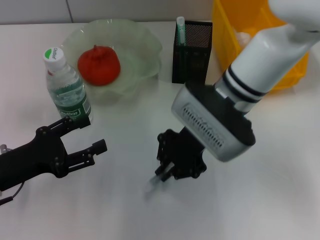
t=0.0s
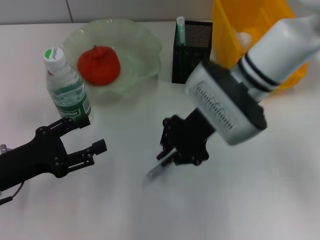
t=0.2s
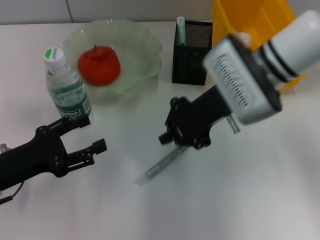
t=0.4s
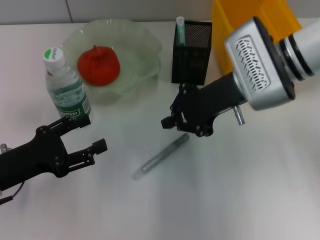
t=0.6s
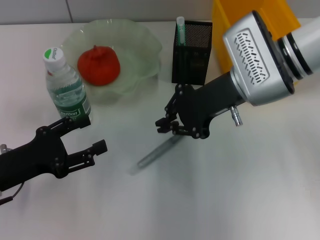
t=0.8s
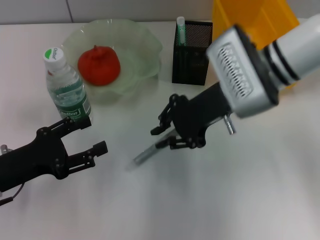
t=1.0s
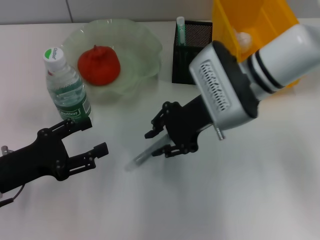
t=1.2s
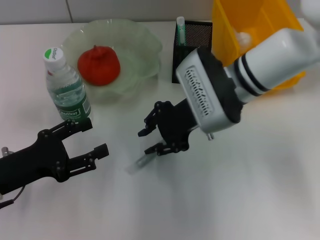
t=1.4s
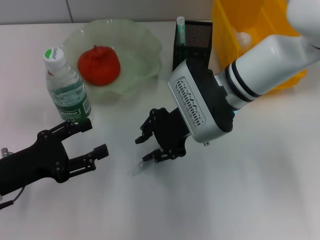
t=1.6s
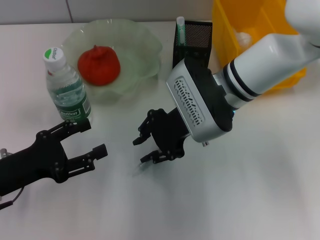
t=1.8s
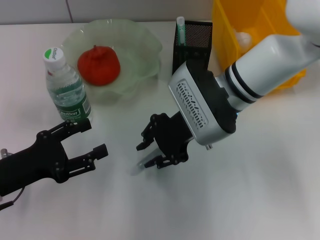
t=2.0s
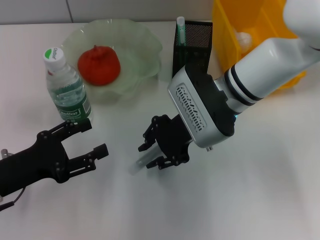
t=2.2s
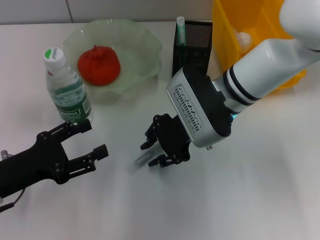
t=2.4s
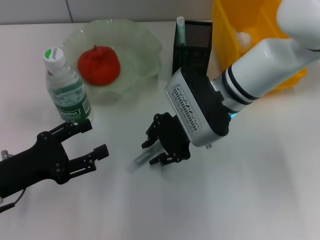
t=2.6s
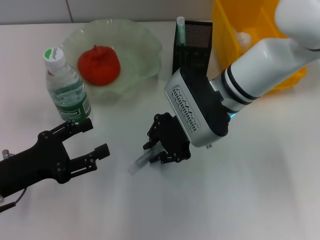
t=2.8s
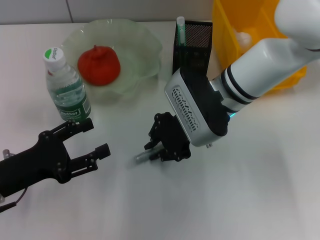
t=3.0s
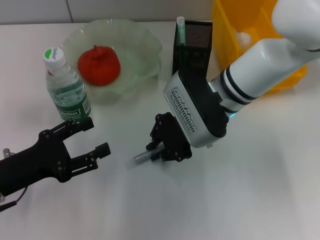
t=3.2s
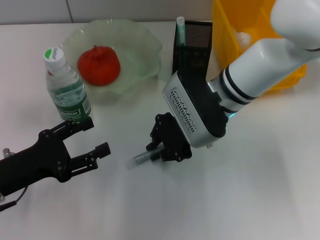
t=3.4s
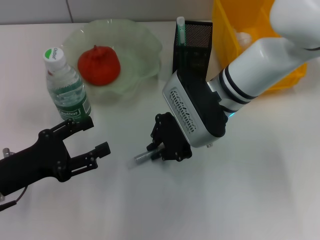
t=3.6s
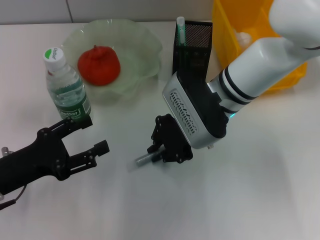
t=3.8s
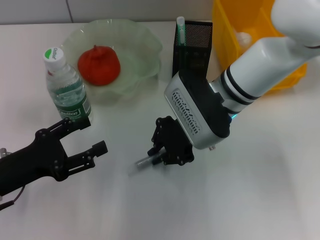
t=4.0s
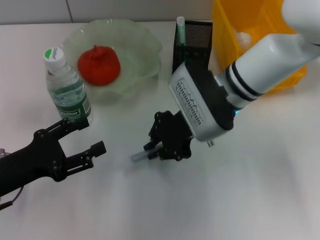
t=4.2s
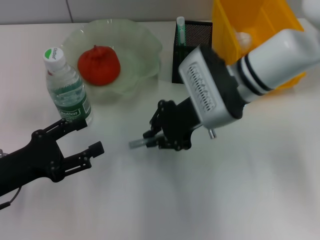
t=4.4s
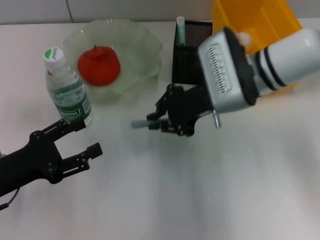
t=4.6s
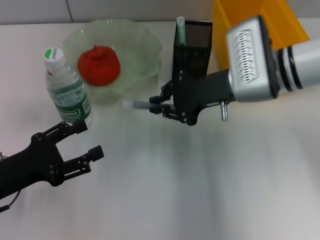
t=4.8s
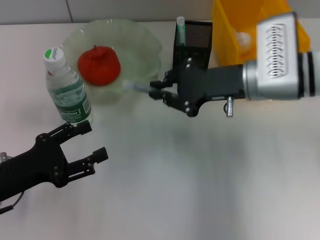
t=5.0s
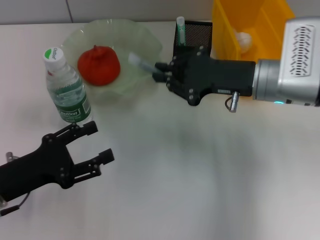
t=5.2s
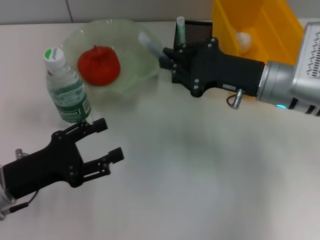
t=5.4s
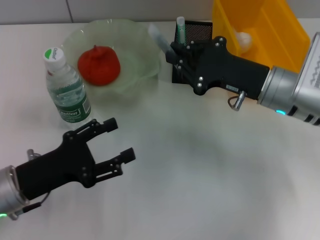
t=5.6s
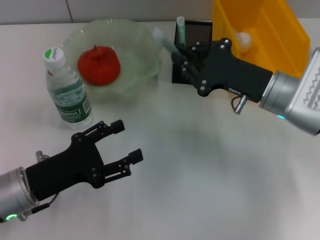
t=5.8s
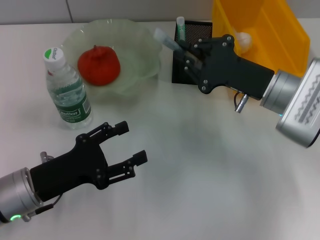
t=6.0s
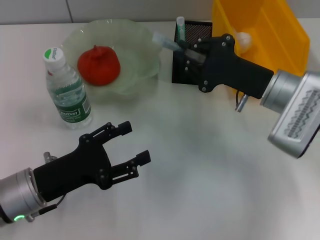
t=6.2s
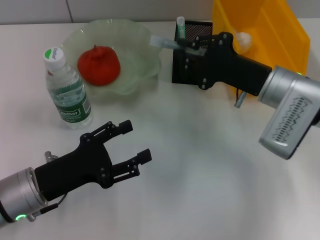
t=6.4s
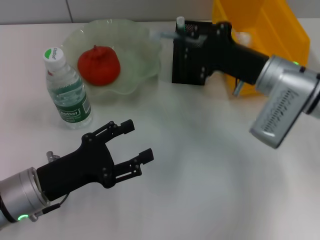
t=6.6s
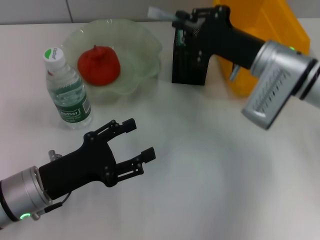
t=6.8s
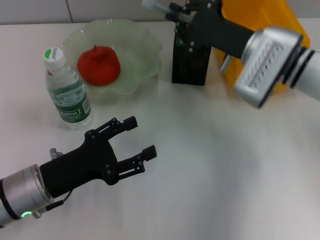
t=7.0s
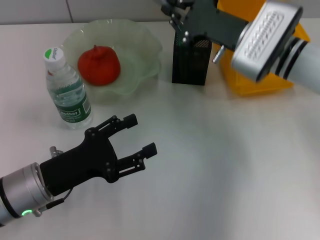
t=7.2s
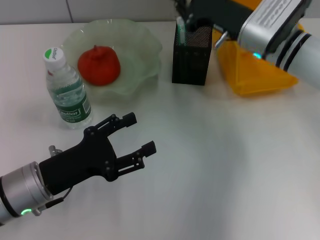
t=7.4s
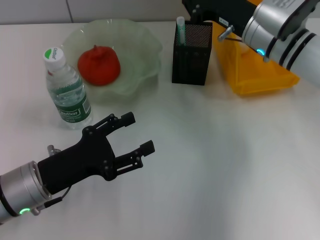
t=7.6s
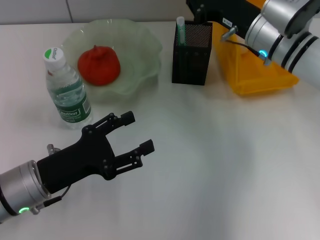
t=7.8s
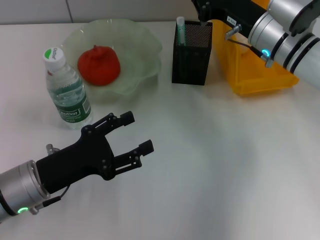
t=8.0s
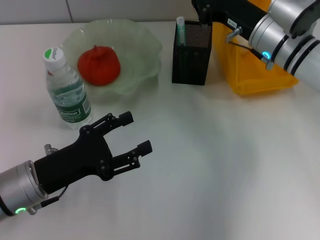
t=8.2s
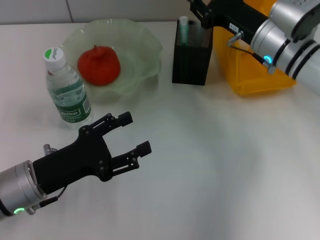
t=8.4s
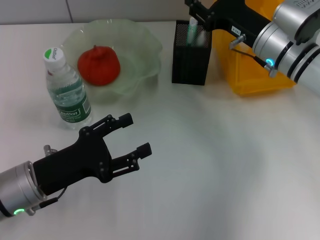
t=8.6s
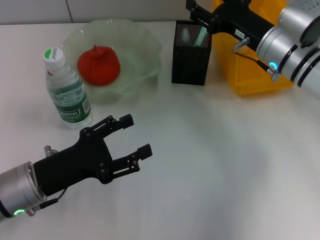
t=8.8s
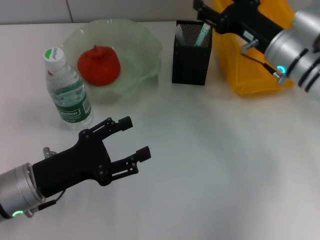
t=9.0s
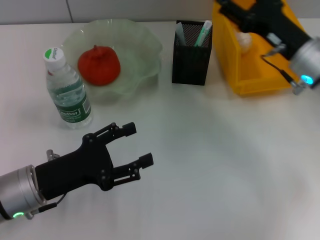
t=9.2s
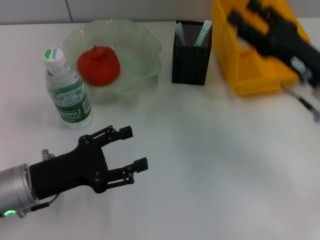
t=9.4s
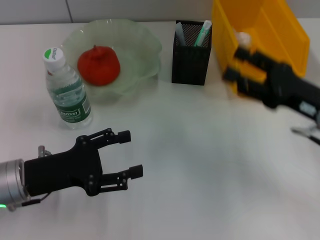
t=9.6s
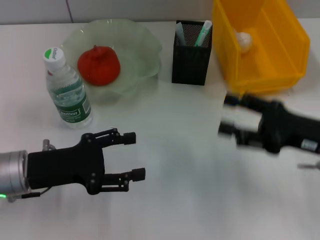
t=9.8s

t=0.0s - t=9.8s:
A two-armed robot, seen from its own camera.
Step, t=0.0s - t=4.0s: Grab the gray glue with the right hand.
Step, t=4.2s - t=8.6s: Place the gray glue into the pen holder with the right hand.
t=1.4s - t=2.8s: There are only small adjustments of the grippers.
t=2.8s - t=4.2s: The two grippers keep their place.
t=4.2s - t=5.6s: The right gripper is displaced to the right by about 10 cm.
t=5.6s - t=7.0s: The right gripper is displaced forward by some 5 cm.
t=8.4s - t=9.8s: The right gripper travels backward and to the right by some 15 cm, and opens.

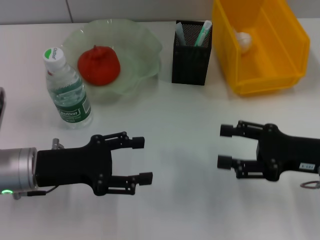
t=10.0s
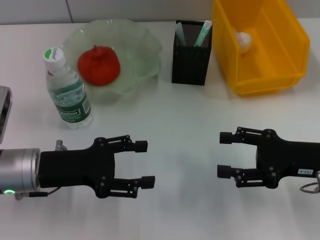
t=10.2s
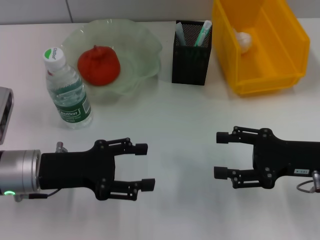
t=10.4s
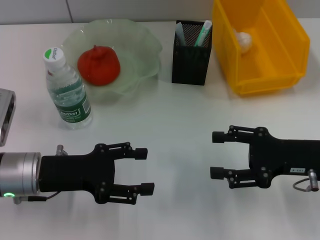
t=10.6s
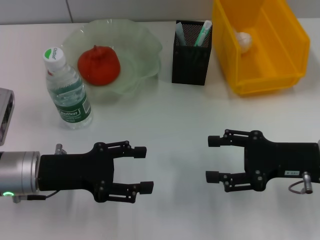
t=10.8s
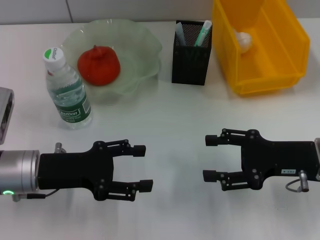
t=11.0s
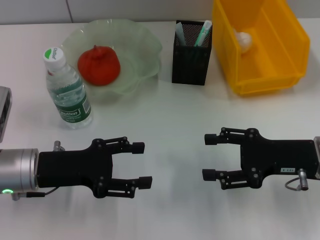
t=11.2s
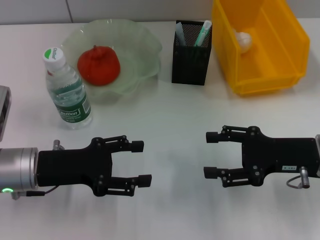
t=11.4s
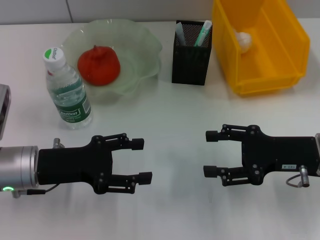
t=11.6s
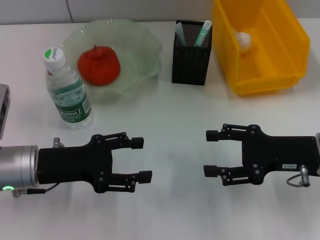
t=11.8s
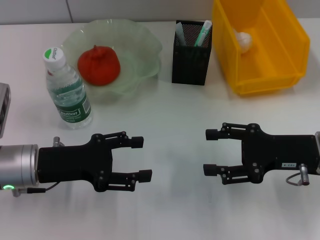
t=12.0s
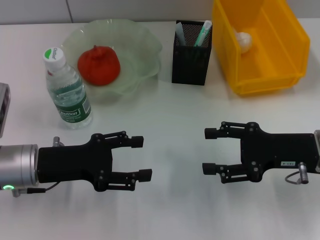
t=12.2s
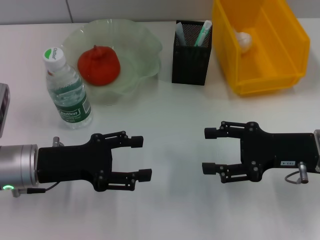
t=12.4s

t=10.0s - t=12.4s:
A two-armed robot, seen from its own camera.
t=10.0s - t=11.2s: The grippers move only a little.
t=11.2s - t=12.4s: The two grippers keep their place.

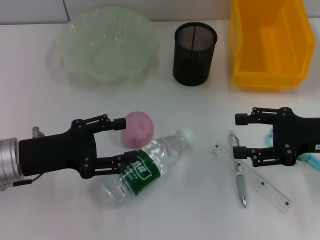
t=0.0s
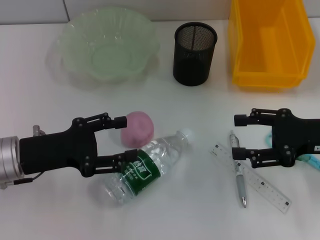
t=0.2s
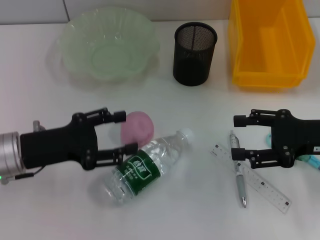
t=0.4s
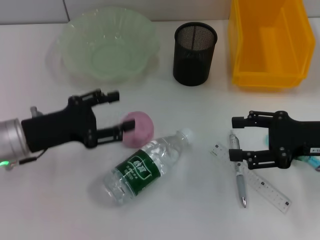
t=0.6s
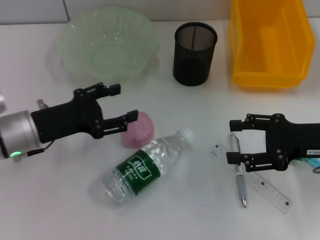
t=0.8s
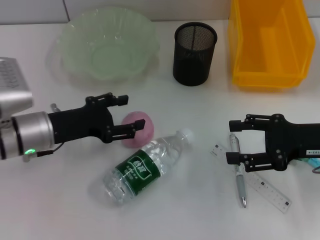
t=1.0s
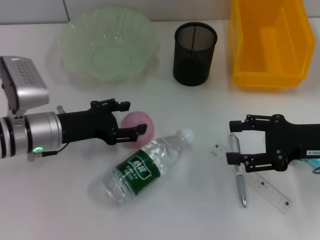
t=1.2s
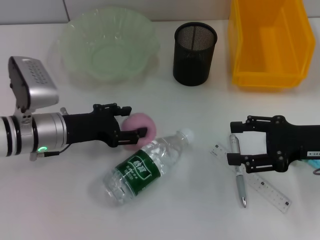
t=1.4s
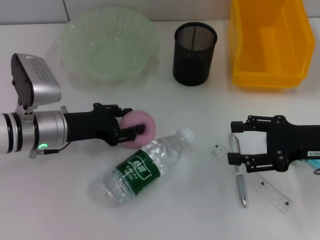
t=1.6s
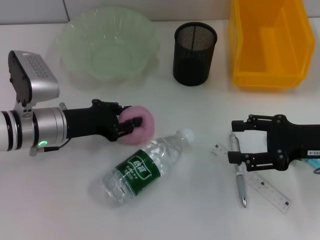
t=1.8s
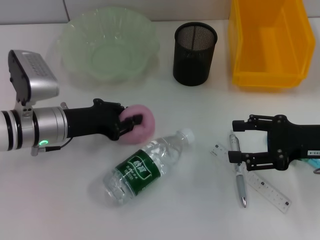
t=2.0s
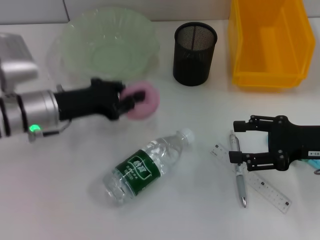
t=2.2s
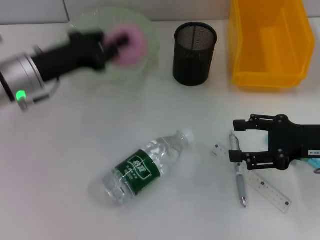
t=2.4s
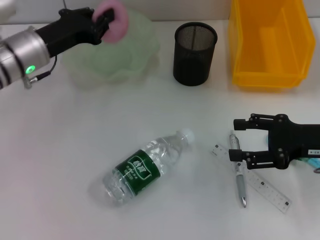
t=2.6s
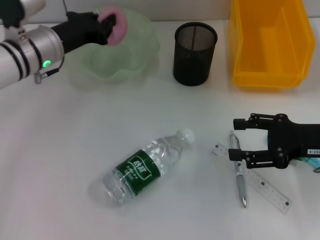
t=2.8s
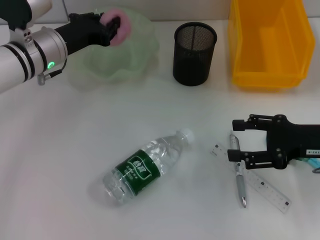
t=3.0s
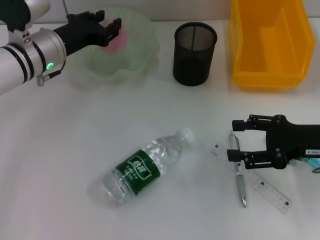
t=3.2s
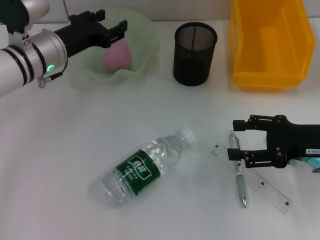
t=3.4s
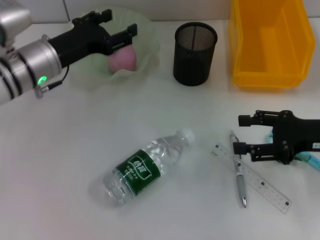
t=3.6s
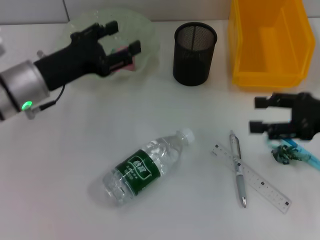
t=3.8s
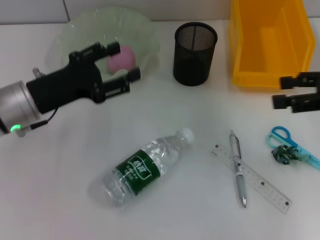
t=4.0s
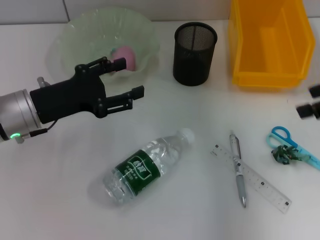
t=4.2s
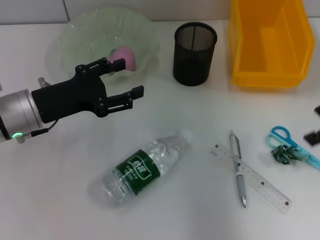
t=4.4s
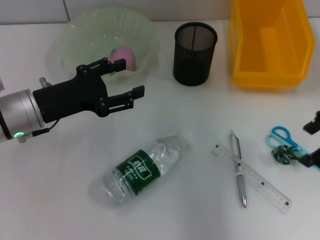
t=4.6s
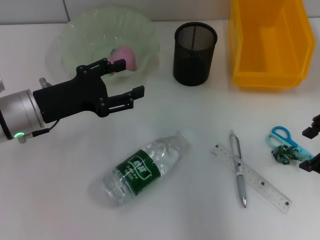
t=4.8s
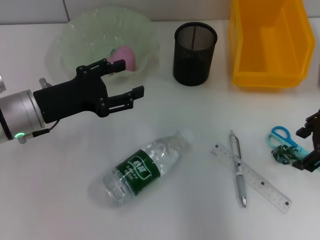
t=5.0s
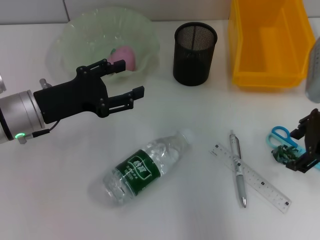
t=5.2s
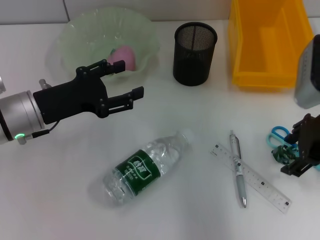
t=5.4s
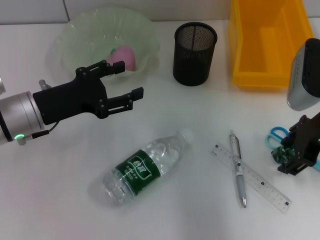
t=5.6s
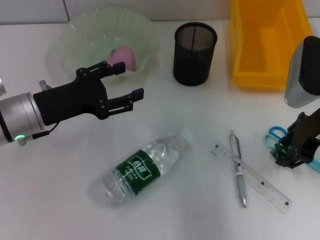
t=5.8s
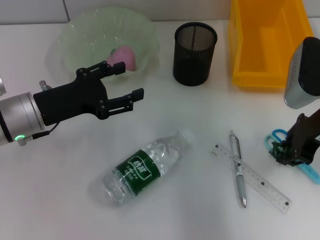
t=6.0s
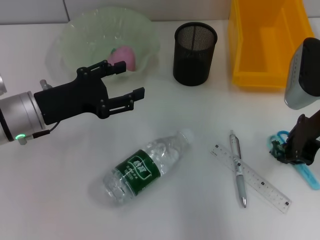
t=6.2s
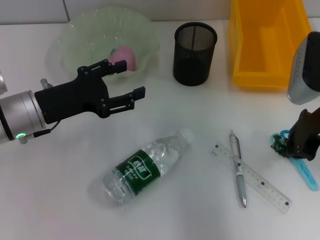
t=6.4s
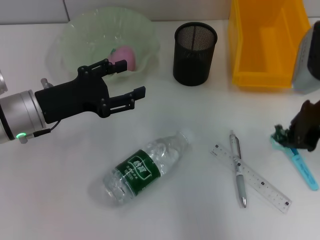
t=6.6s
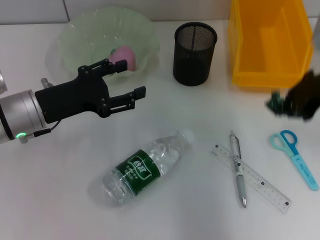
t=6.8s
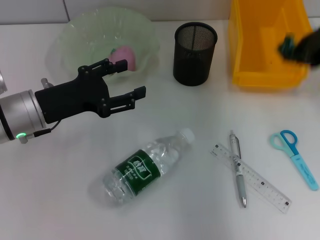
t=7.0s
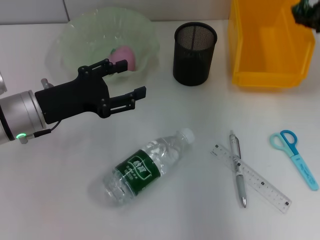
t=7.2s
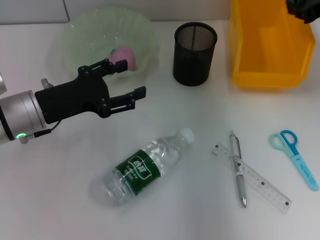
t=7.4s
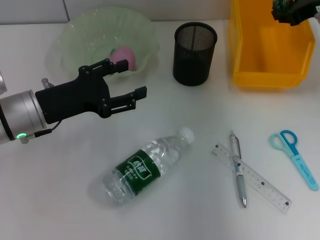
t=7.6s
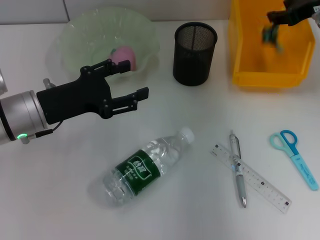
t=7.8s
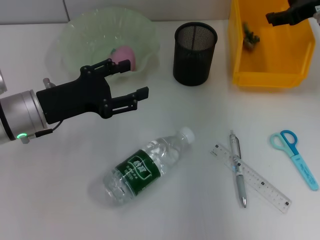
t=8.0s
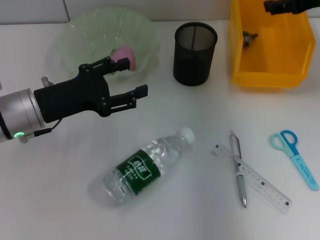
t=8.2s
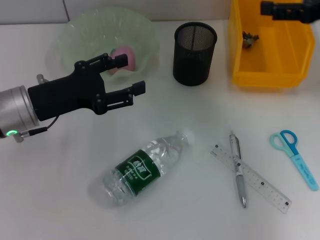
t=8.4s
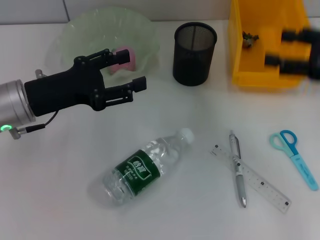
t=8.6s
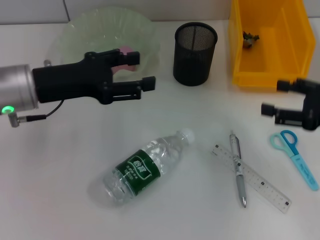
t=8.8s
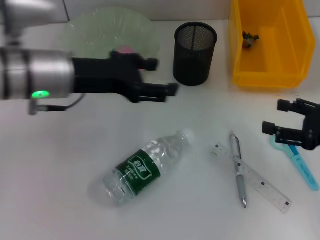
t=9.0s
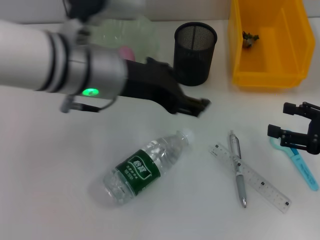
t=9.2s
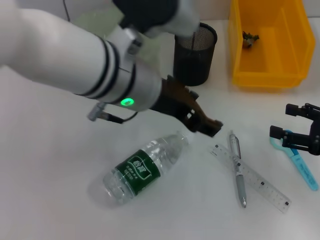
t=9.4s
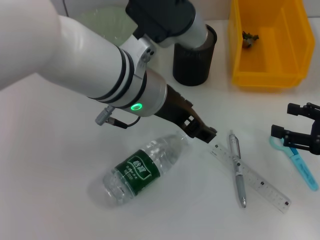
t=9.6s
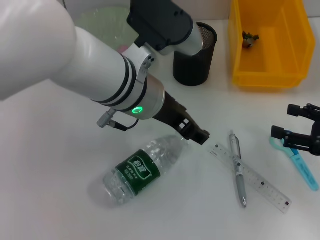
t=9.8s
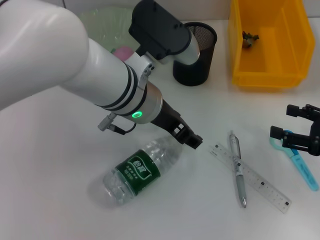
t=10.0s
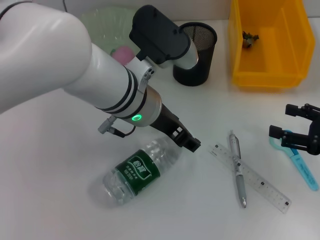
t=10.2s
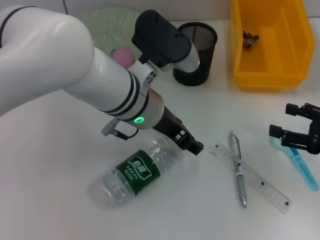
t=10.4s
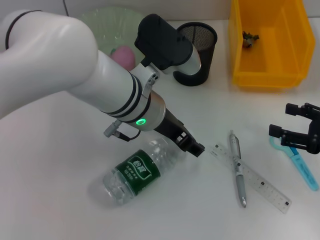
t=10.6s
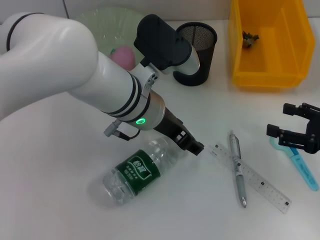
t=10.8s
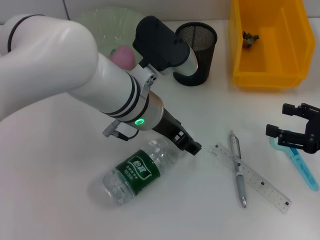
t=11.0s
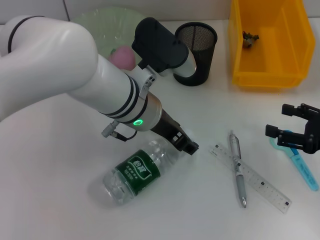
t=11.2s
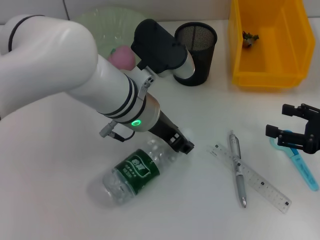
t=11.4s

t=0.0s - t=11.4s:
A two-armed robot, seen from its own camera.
Step, t=0.0s - t=1.8s: Grab the peach with the left hand.
Step, t=2.0s - t=3.2s: Place the peach into the fruit bowl with the left hand.
Step, t=3.4s - t=6.0s: Grab the plastic with the right hand.
Step, t=6.4s - t=7.8s: Place the plastic into the trash can with the right hand.
t=0.0s - t=1.4s: The left gripper goes some 5 cm forward.
t=1.4s - t=2.8s: The left gripper goes about 10 cm forward and upward, and closes its fingers.
t=2.8s - t=4.2s: The right gripper shifts some 15 cm upward; the left gripper travels backward by some 10 cm, and opens up.
t=4.2s - t=5.6s: The right gripper is displaced downward and to the left by roughly 10 cm.
t=5.6s - t=7.2s: The right gripper travels upward and forward by about 10 cm, and closes its fingers.
t=7.2s - t=8.6s: The right gripper moves backward and downward, some 10 cm, and opens its fingers.
t=8.6s - t=10.0s: The right gripper goes about 10 cm downward and backward, while the left gripper travels to the right by approximately 20 cm.
t=10.0s - t=11.4s: The grippers move only a little.
